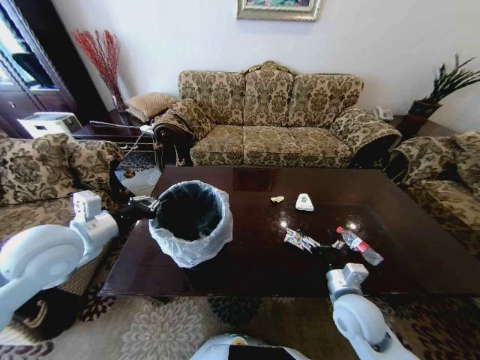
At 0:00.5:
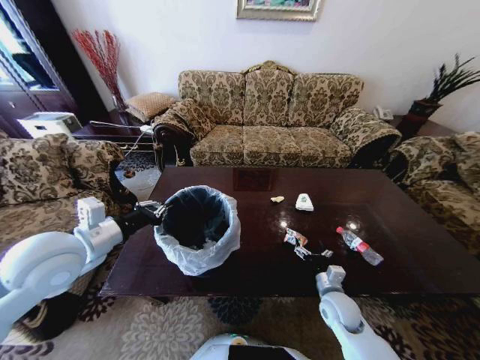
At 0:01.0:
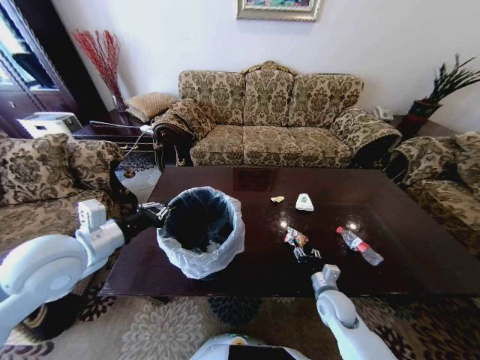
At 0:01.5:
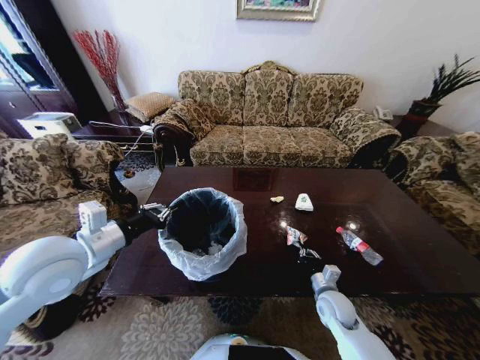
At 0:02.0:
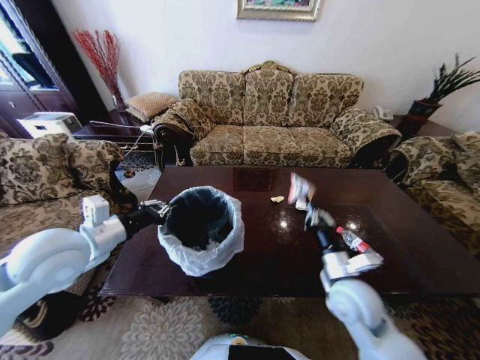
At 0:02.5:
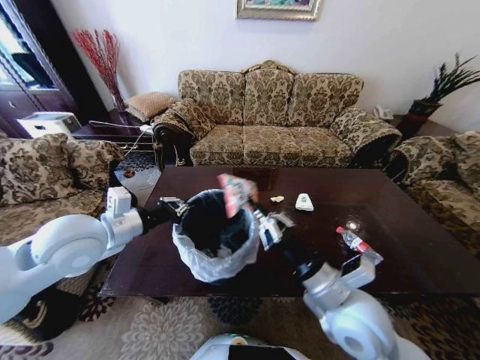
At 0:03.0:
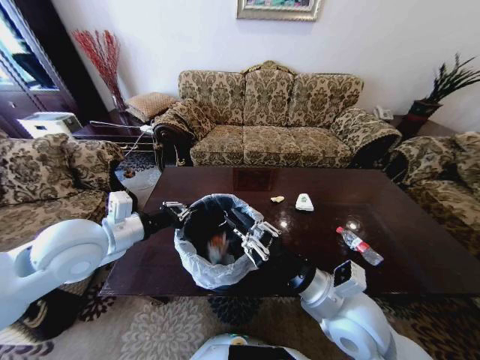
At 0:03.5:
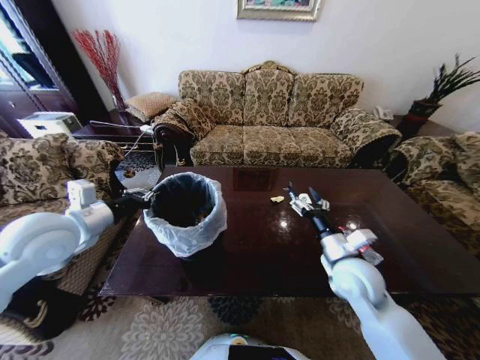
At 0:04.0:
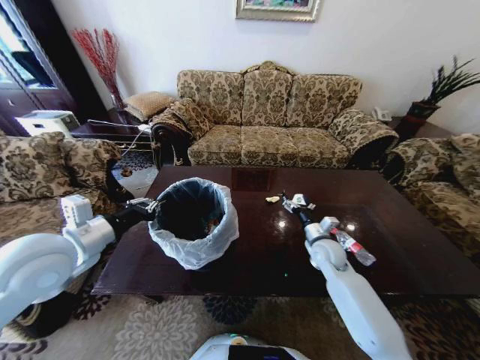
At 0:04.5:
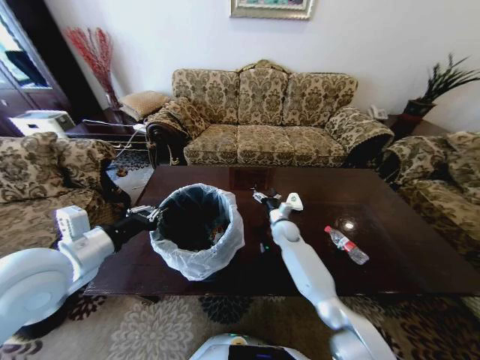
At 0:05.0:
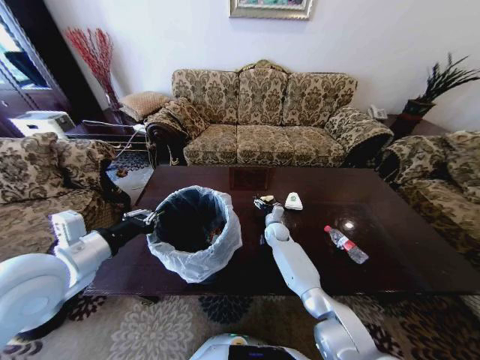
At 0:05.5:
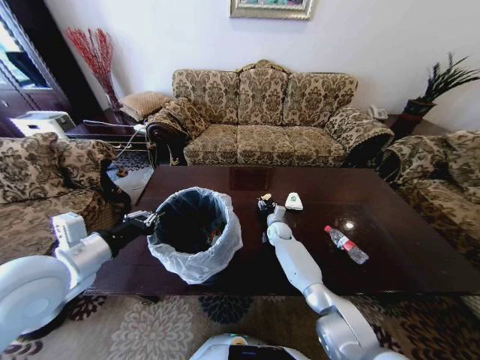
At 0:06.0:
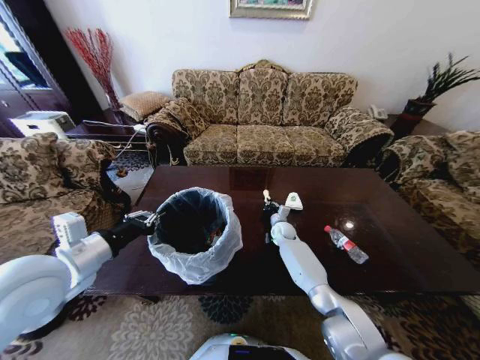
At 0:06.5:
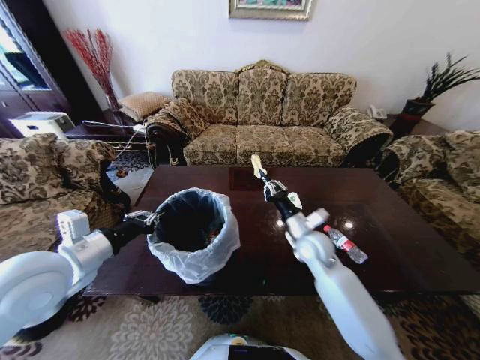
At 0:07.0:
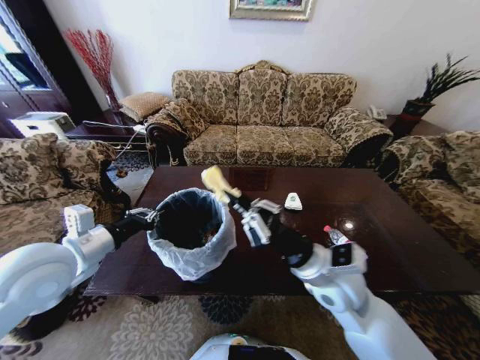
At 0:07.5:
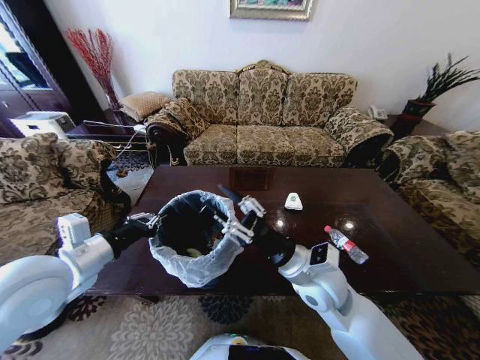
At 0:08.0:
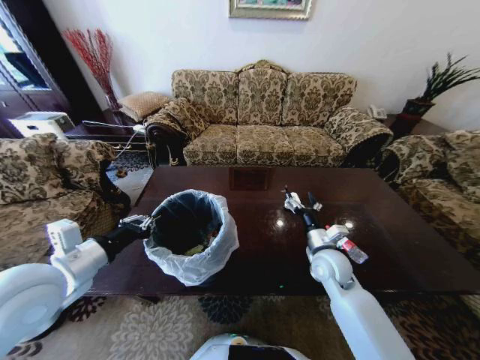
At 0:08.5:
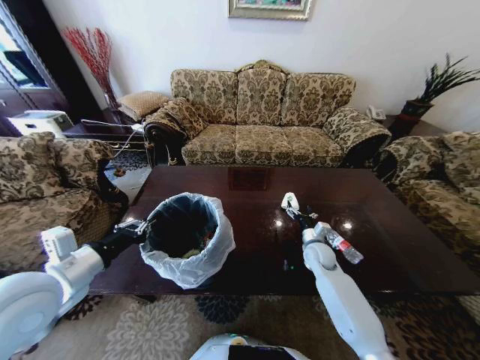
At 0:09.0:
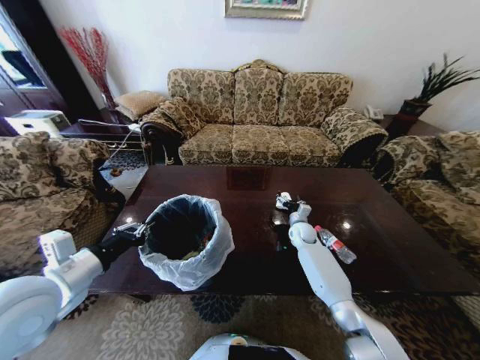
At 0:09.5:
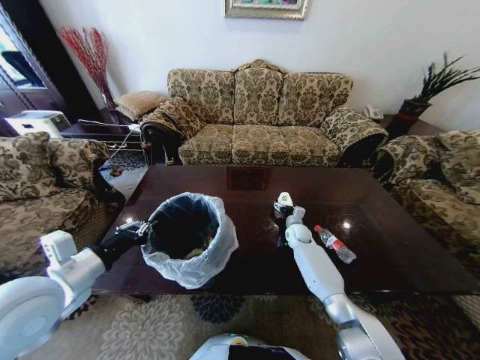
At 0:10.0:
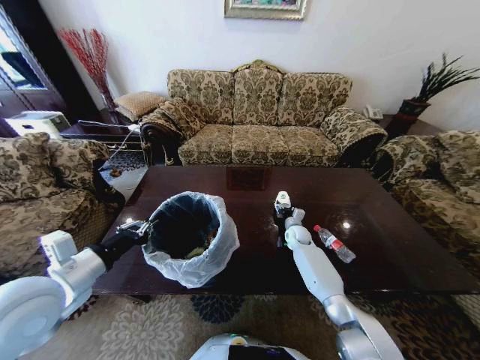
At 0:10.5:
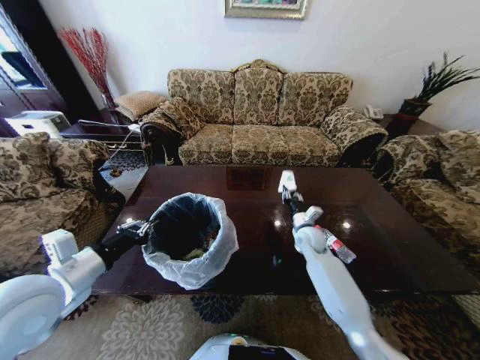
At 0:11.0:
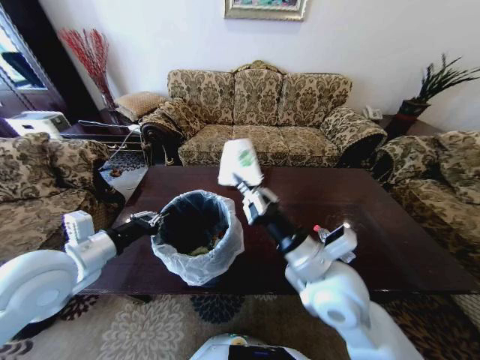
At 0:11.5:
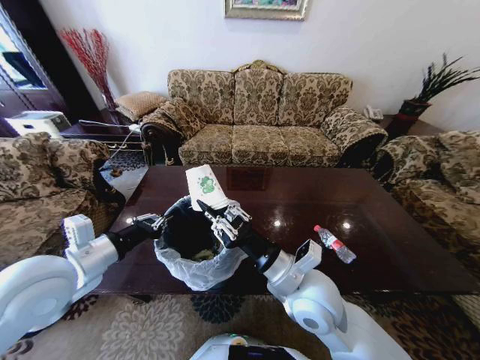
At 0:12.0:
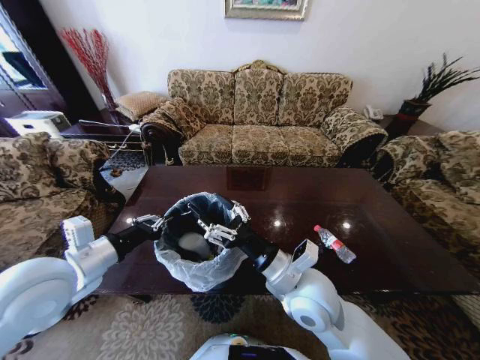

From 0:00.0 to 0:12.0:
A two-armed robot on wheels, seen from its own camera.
Task of the whole recording: Move to the front of the table and place the trash on the table into the trash bin.
From 0:00.0 to 0:02.0: The right gripper goes downward and returns, about 10 cm each way, and closes up.
From 0:02.0 to 0:04.0: The right gripper heads forward and downward, covering approximately 15 cm, and opens its fingers.
From 0:04.0 to 0:06.0: The right gripper goes about 20 cm forward, downward and to the left, and closes.
From 0:06.0 to 0:08.0: The right gripper moves backward and upward, about 25 cm, and opens.
From 0:08.0 to 0:10.0: The right gripper travels forward and downward by approximately 25 cm.
From 0:10.0 to 0:12.0: The right gripper heads backward and upward, covering some 35 cm, and closes, then reopens.

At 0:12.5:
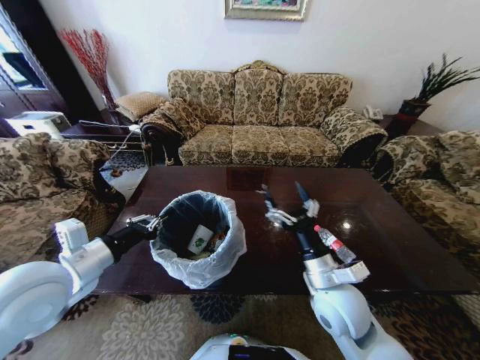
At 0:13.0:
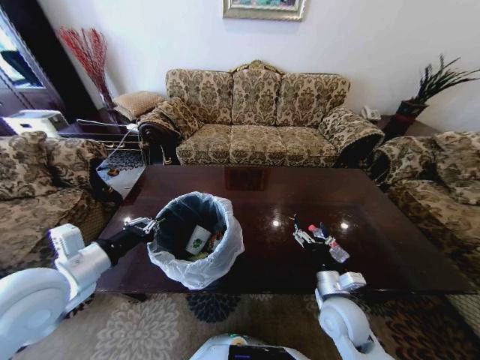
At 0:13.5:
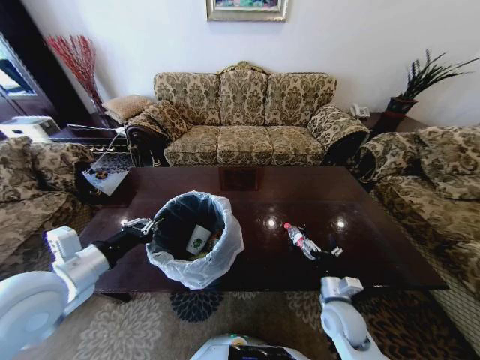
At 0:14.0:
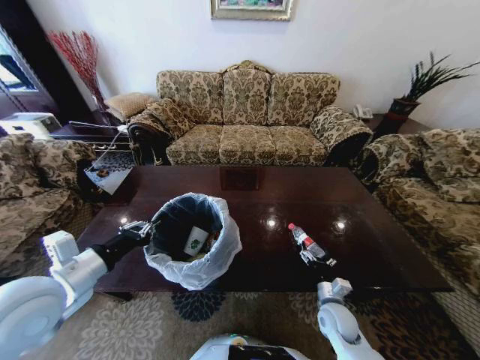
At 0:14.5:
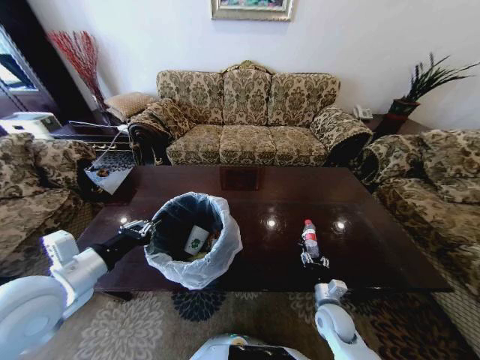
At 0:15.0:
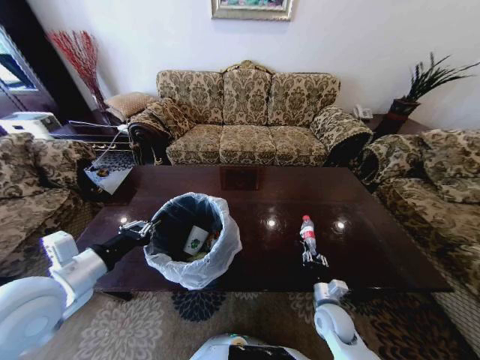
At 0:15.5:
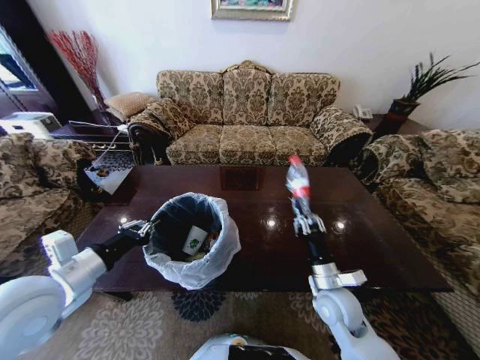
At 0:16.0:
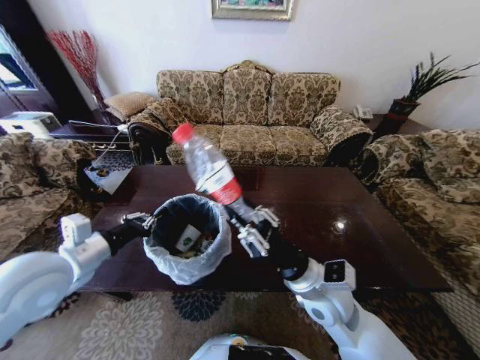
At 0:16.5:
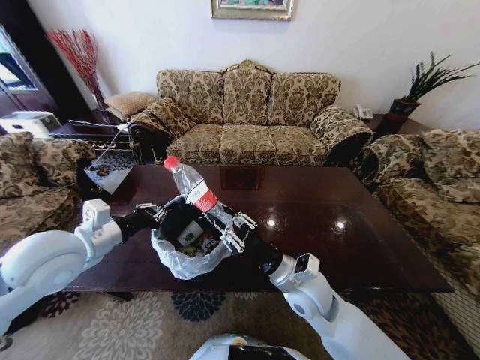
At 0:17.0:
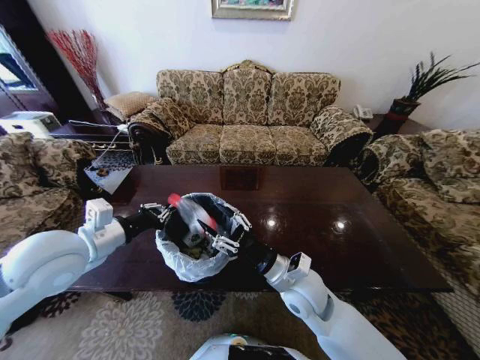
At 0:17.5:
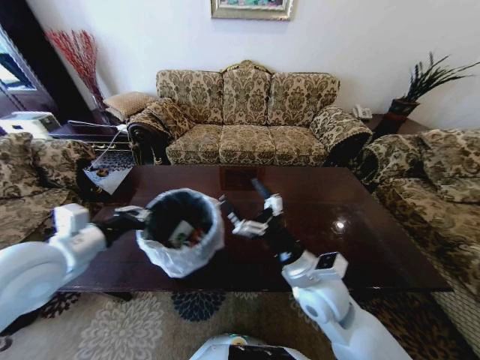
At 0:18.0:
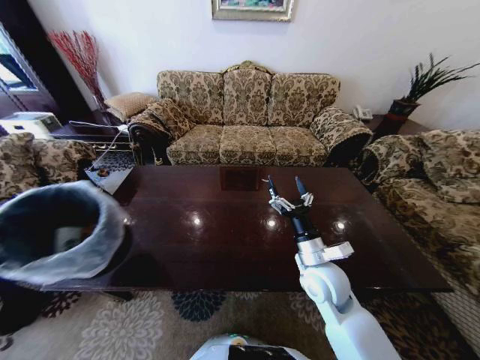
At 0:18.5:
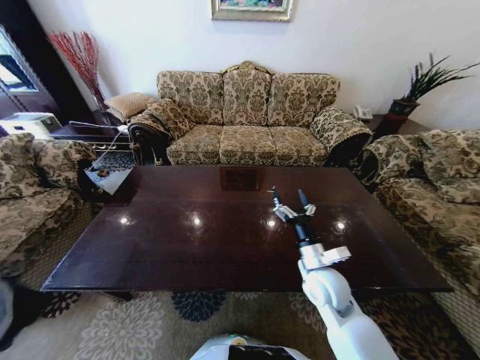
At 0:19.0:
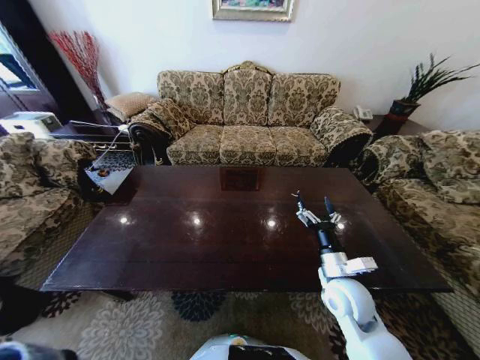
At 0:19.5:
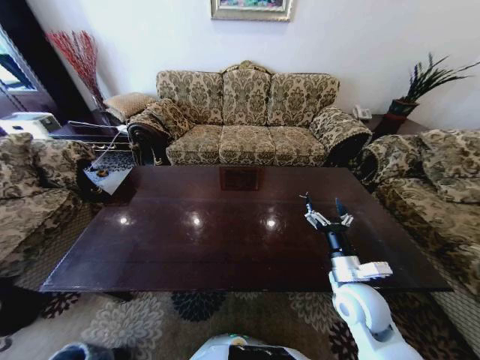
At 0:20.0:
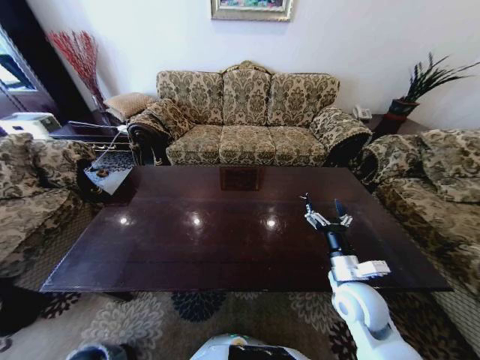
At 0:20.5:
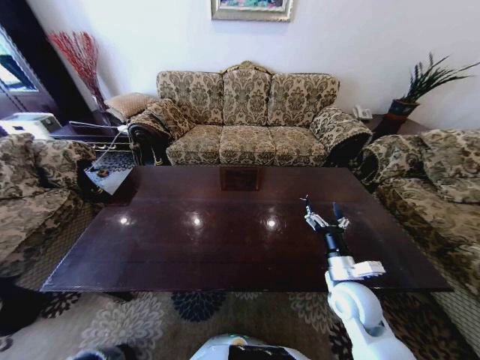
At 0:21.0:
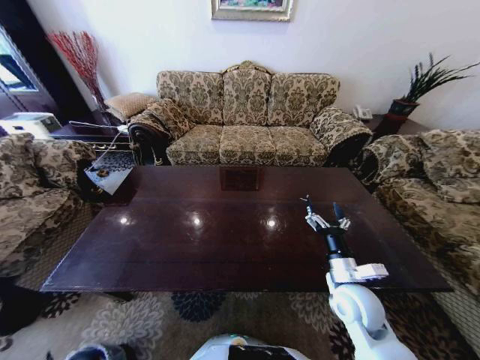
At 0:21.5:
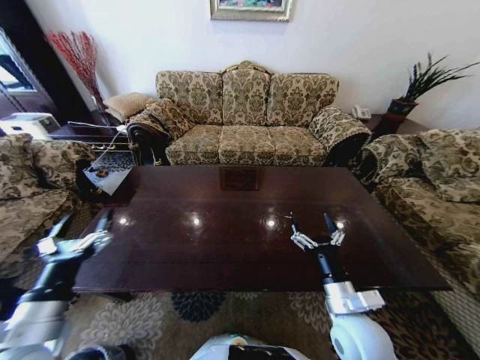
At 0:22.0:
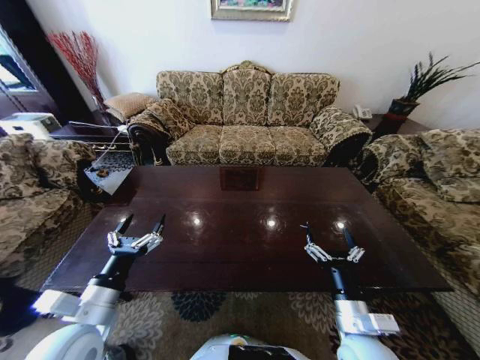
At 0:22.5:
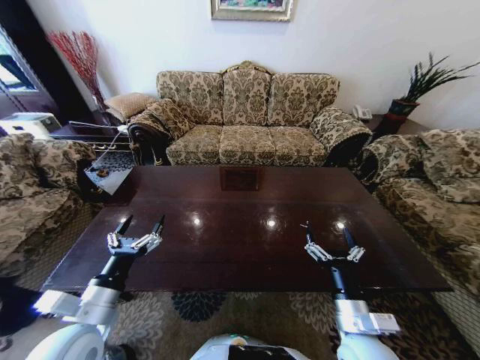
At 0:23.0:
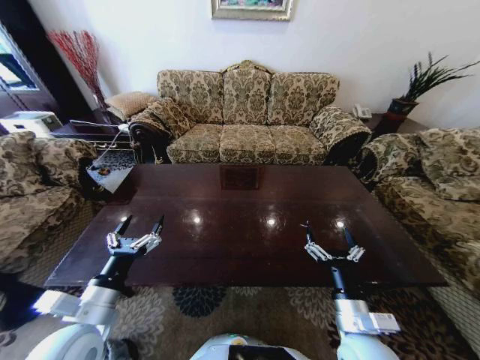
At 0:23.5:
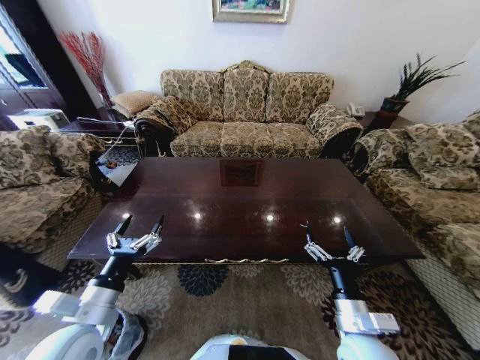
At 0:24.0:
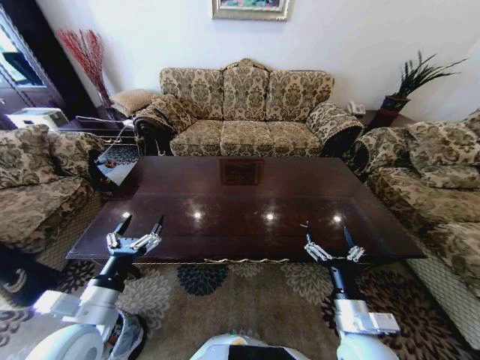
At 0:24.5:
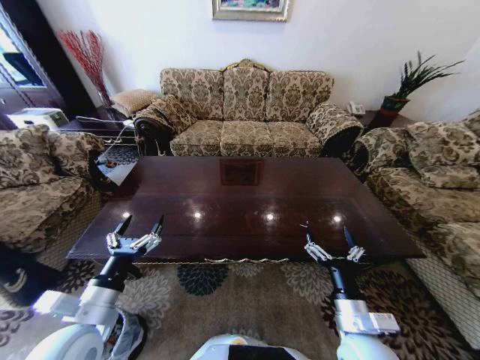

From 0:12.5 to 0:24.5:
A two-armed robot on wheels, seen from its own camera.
Task of the whole recording: Move to the front of the table and place the trash on the table into the trash bin.
From 0:12.5 to 0:14.5: The right gripper moves downward and to the right, approximately 25 cm, and closes its fingers.
From 0:14.5 to 0:16.5: The left gripper moves forward, some 5 cm. Meanwhile the right gripper goes approximately 25 cm upward and to the left, and closes.
From 0:16.5 to 0:18.5: The left gripper goes some 35 cm backward, to the left and downward; the right gripper is displaced to the right by some 5 cm, and opens up.
From 0:18.5 to 0:20.5: The left gripper travels downward by roughly 40 cm, and opens up. Meanwhile the right gripper travels to the right by some 5 cm.
From 0:20.5 to 0:22.5: The left gripper travels upward and forward by approximately 50 cm, while the right gripper goes about 10 cm backward.

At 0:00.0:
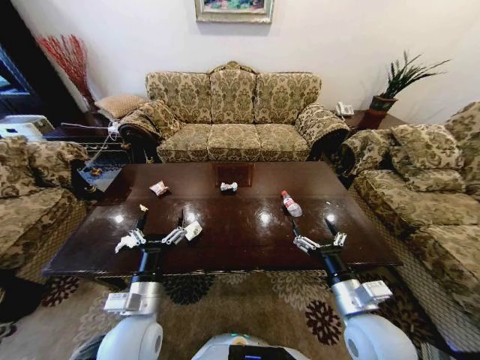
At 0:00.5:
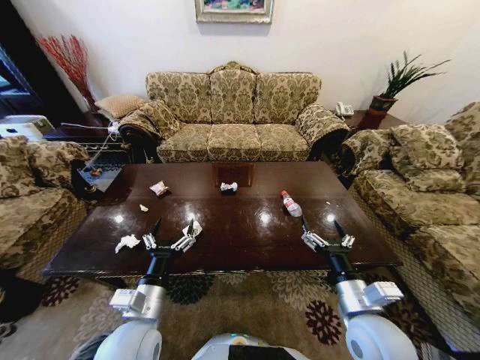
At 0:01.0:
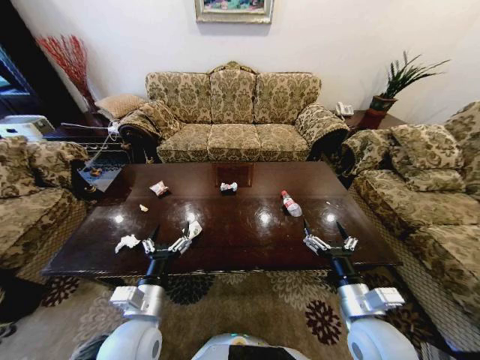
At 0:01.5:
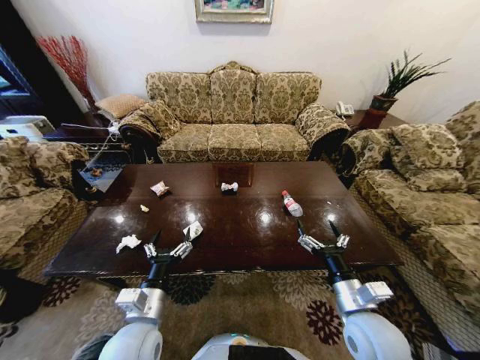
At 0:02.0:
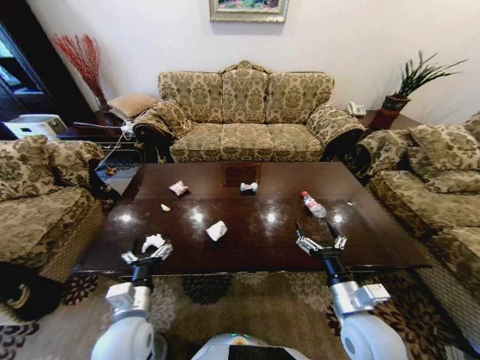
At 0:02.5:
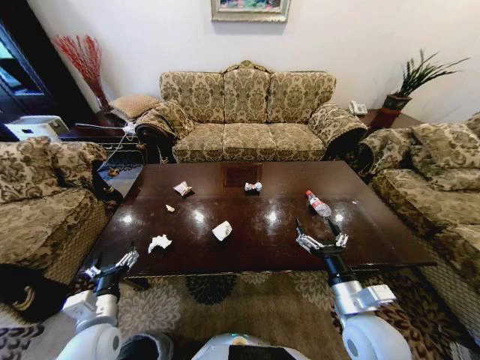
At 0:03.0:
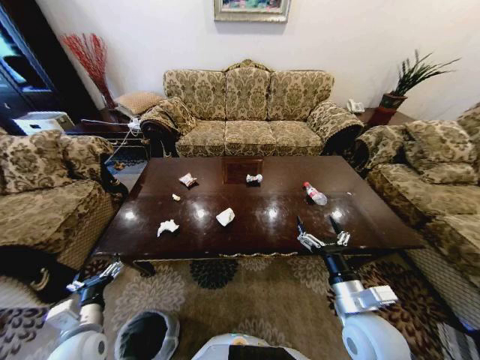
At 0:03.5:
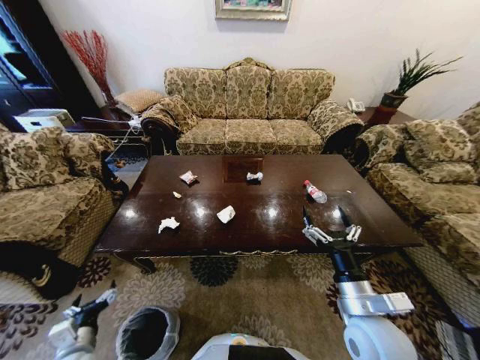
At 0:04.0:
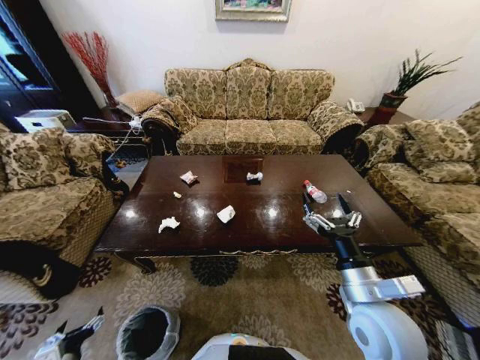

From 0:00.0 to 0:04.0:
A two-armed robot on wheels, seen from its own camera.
Task of the whole recording: Move to the front of the table and place the trash on the table into the trash bin.
From 0:02.0 to 0:04.0: The right gripper heads upward, covering approximately 5 cm, while the left gripper shifts some 25 cm to the left, downward and backward.
